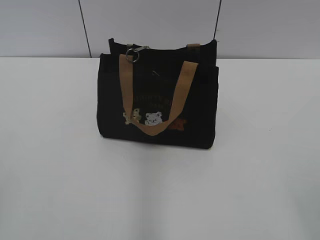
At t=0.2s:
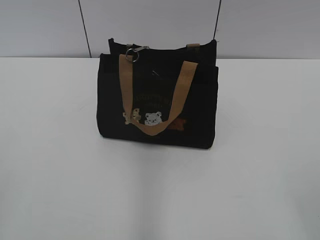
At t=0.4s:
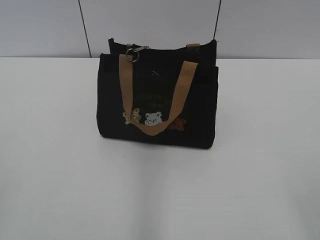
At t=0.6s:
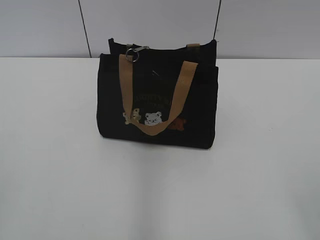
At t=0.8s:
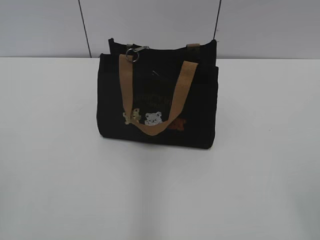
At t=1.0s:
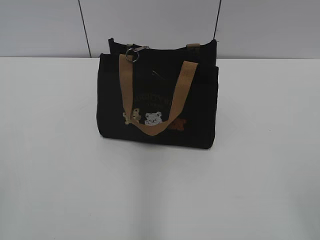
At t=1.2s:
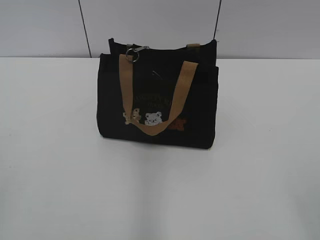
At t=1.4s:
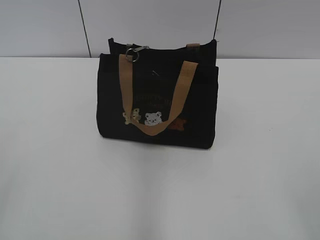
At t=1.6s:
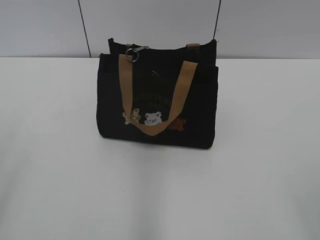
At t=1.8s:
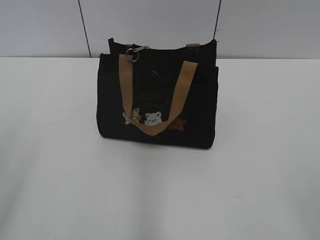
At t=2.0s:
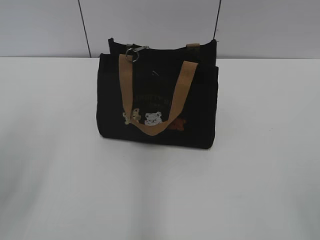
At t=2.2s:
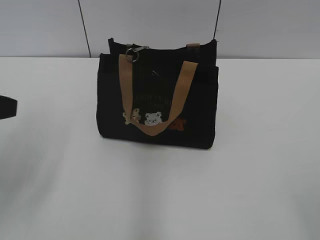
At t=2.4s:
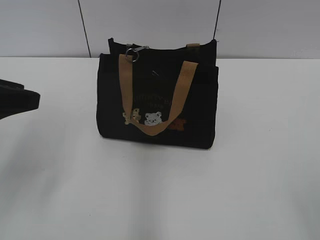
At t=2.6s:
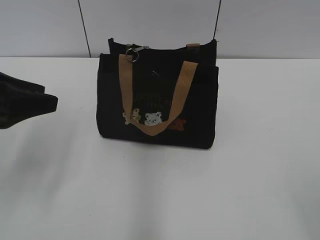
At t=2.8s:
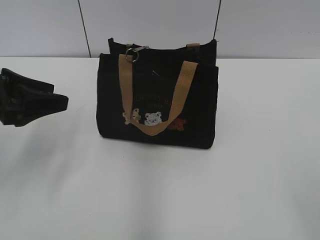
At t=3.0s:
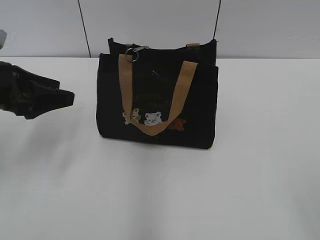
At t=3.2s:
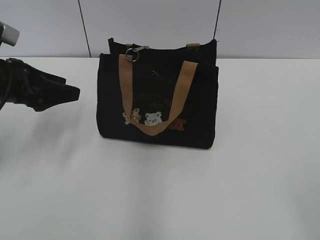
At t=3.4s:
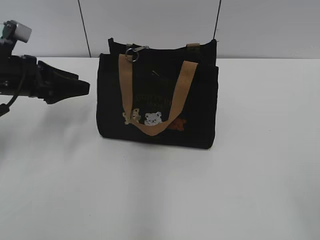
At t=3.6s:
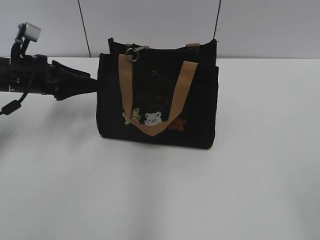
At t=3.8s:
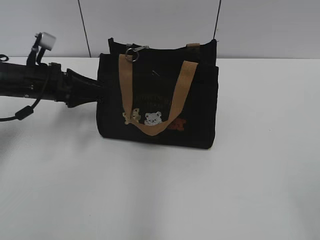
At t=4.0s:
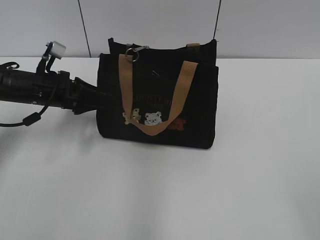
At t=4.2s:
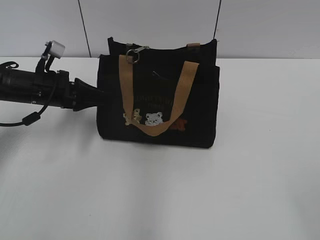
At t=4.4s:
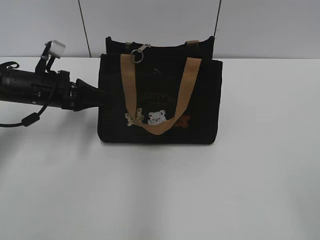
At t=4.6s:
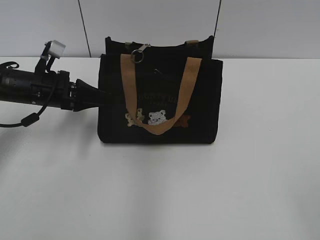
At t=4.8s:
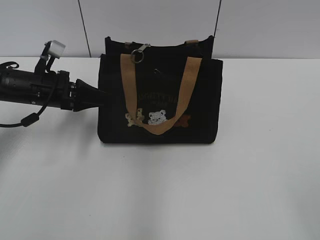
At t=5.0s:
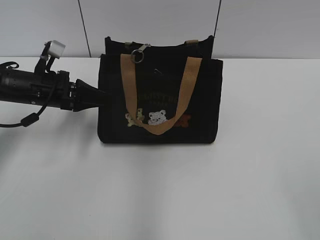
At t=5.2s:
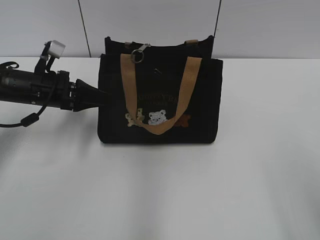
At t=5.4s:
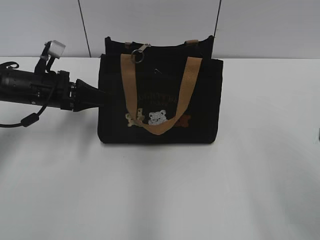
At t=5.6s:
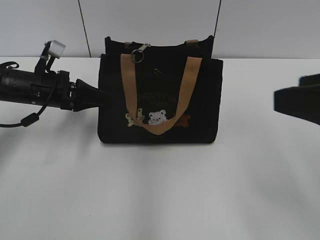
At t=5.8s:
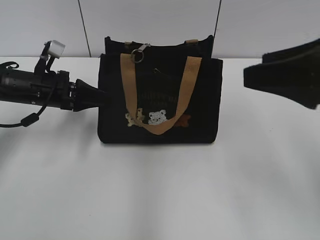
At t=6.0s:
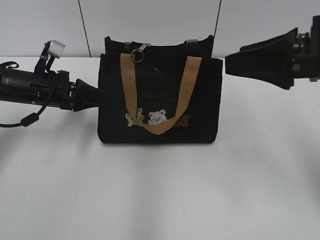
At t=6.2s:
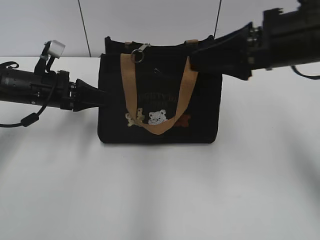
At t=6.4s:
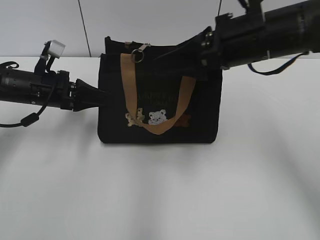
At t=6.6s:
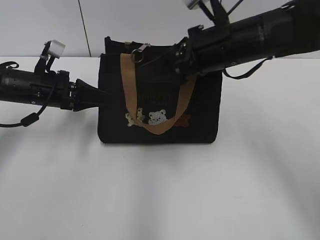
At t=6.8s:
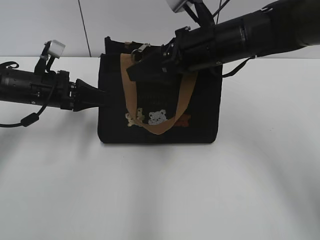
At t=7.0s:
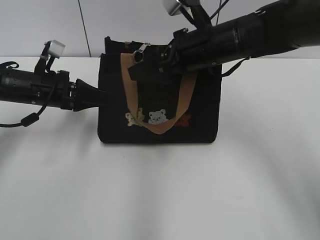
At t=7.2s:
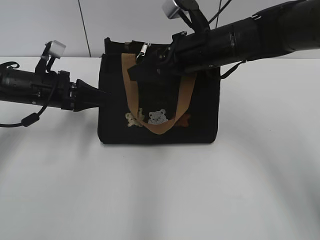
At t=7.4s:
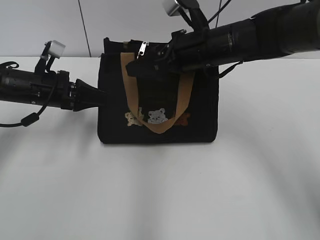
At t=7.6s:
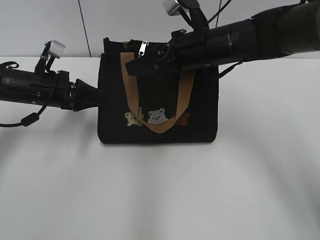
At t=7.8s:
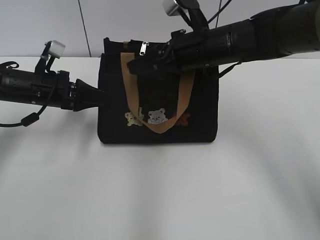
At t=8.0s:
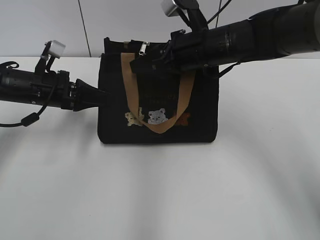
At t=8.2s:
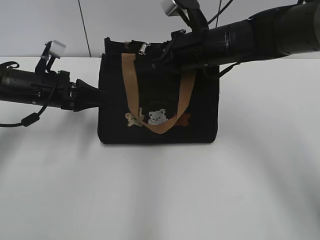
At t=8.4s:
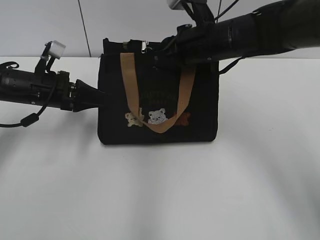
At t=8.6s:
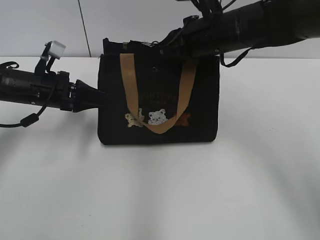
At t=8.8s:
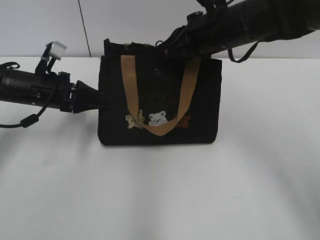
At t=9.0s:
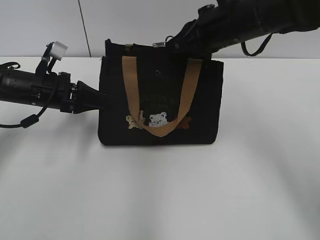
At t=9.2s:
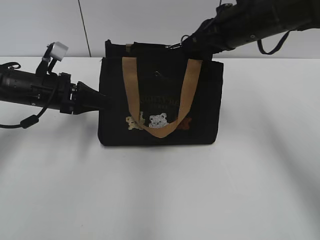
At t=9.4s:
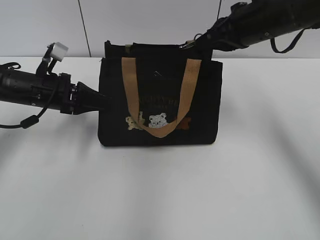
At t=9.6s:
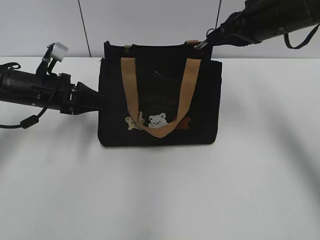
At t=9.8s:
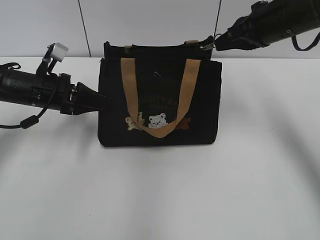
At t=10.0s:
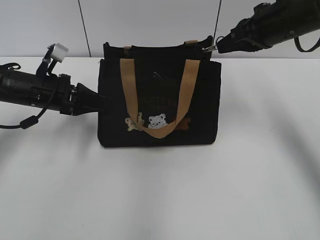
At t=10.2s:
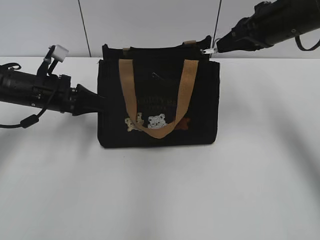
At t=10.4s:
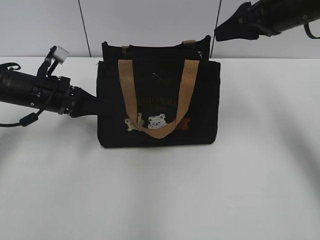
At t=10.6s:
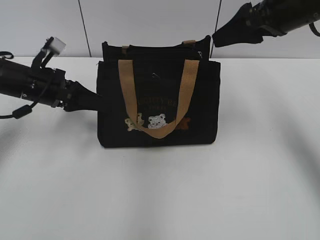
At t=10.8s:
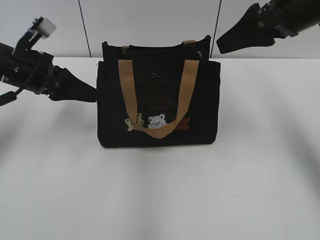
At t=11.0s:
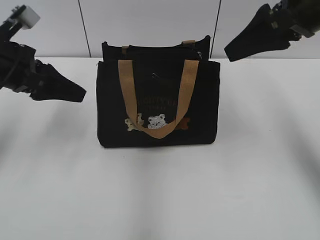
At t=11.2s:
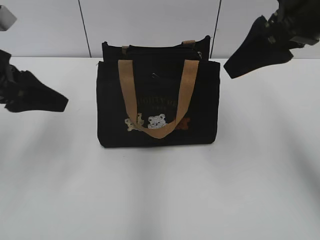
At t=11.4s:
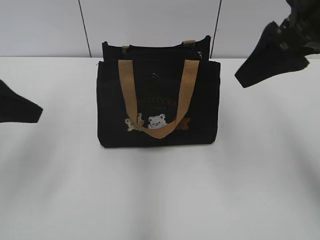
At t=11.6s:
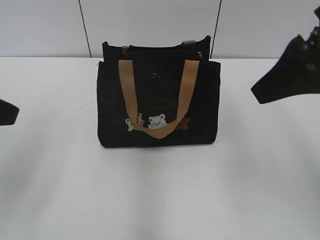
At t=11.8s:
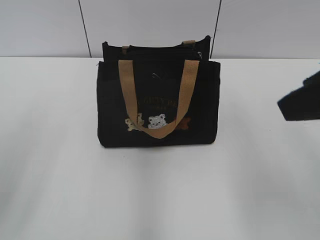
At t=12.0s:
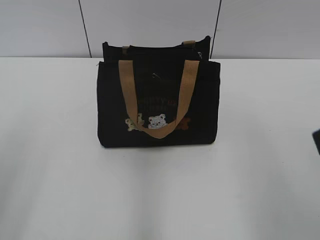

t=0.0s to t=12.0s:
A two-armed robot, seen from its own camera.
Step, t=0.0s to t=10.2s: Pull open the zipper with your right hand.
Step, t=10.4s to t=10.6s: Hold the bag with your left hand.
t=1.6s to t=3.0s: The left gripper shifts approximately 25 cm forward and downward.
t=3.0s to t=4.4s: The left gripper moves forward and downward, about 10 cm, and closes.
t=4.4s to t=6.0s: The right gripper moves forward, some 25 cm.
t=6.0s to t=7.6s: The right gripper travels forward, to the left and downward by roughly 20 cm.
t=7.6s to t=9.0s: The right gripper moves approximately 5 cm, and closes its fingers.
t=9.0s to t=10.4s: The right gripper shifts about 10 cm to the right, and opens up, while the left gripper opens its fingers.
t=10.4s to t=12.0s: The right gripper travels backward by roughly 25 cm. Meanwhile the left gripper travels backward and upward by approximately 30 cm.

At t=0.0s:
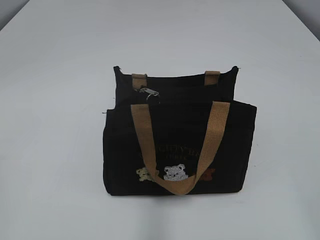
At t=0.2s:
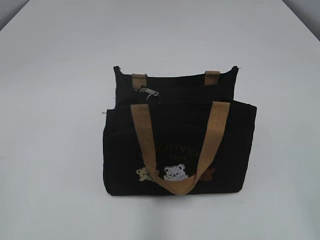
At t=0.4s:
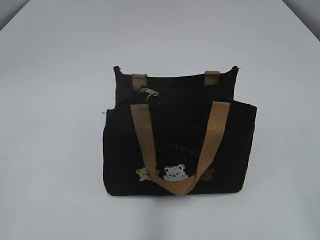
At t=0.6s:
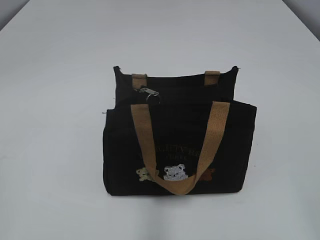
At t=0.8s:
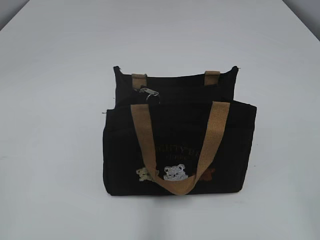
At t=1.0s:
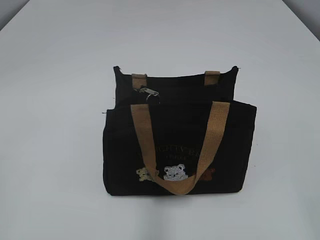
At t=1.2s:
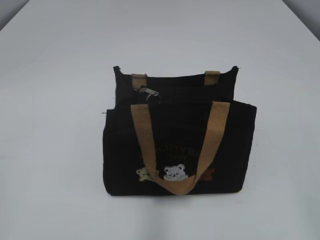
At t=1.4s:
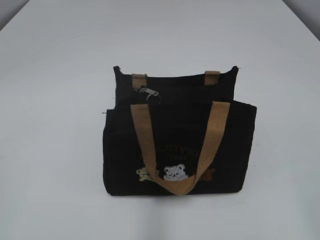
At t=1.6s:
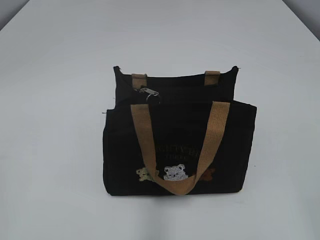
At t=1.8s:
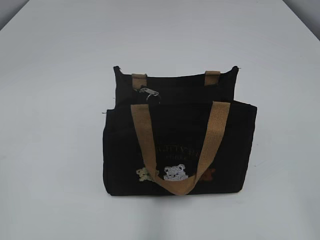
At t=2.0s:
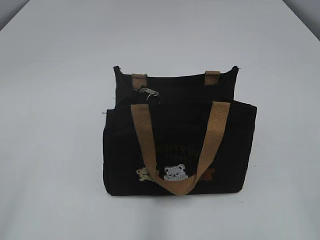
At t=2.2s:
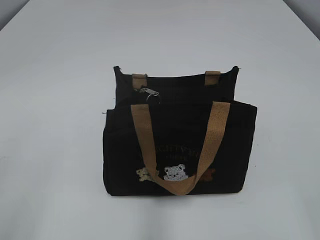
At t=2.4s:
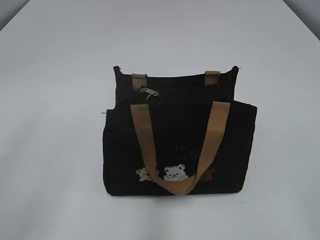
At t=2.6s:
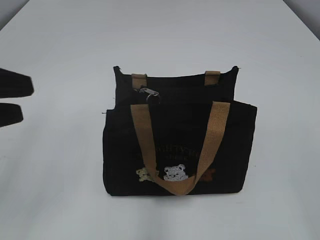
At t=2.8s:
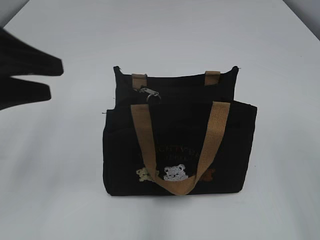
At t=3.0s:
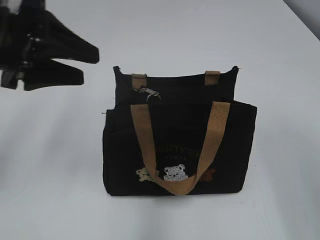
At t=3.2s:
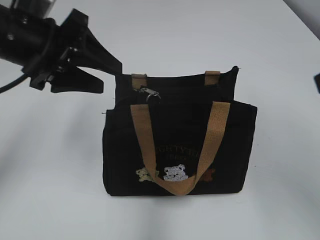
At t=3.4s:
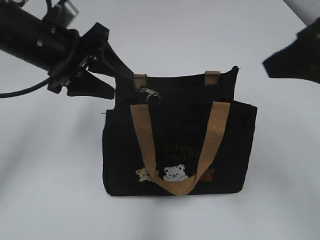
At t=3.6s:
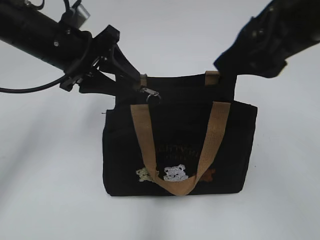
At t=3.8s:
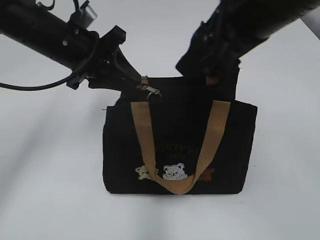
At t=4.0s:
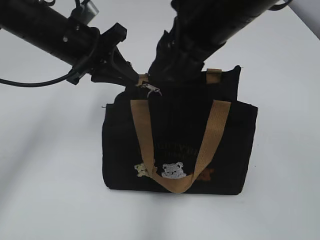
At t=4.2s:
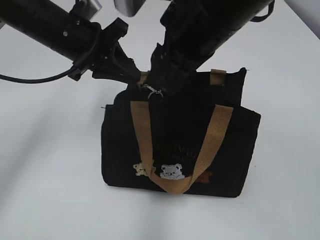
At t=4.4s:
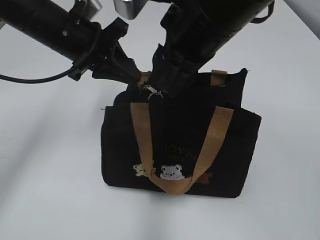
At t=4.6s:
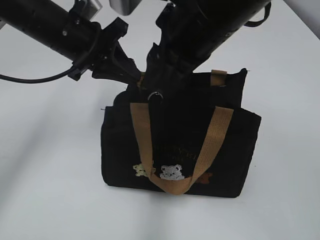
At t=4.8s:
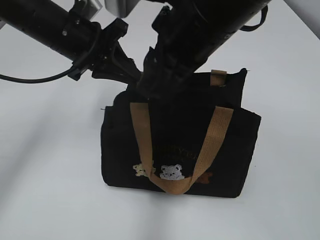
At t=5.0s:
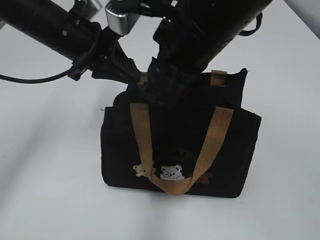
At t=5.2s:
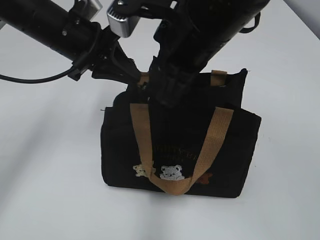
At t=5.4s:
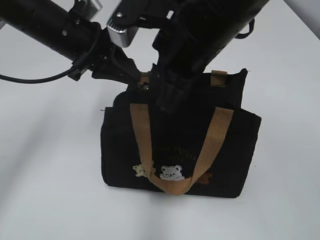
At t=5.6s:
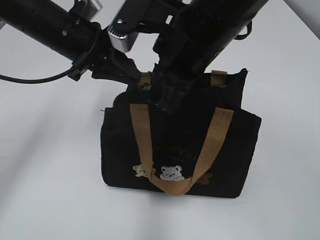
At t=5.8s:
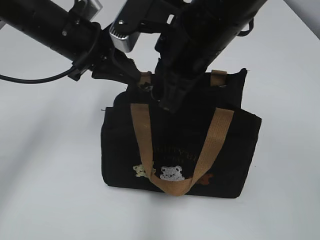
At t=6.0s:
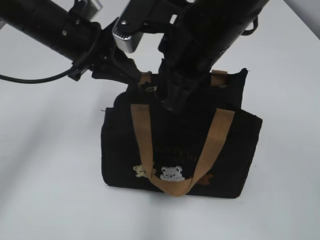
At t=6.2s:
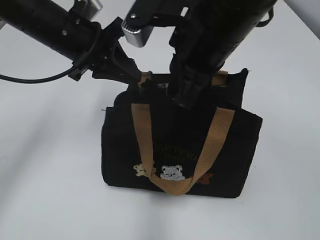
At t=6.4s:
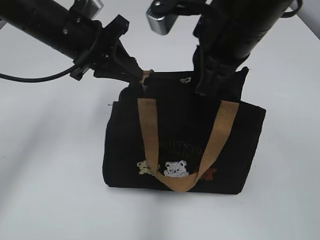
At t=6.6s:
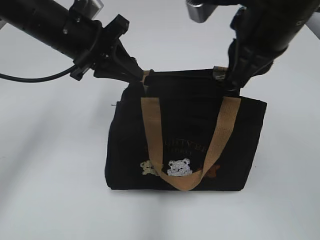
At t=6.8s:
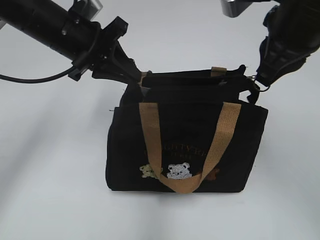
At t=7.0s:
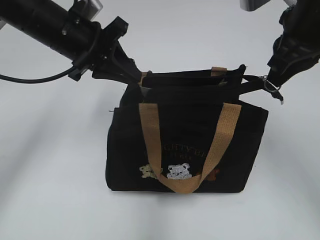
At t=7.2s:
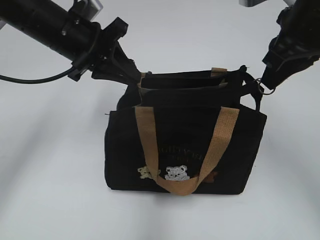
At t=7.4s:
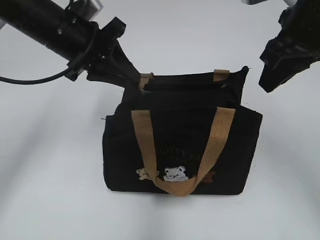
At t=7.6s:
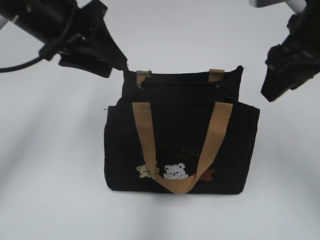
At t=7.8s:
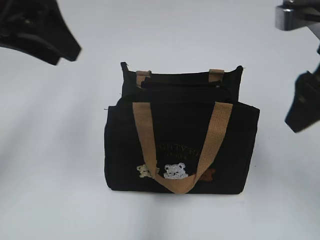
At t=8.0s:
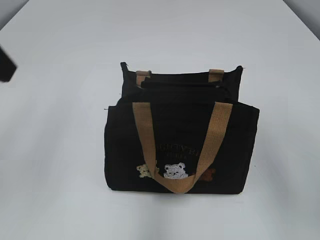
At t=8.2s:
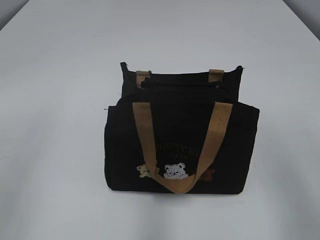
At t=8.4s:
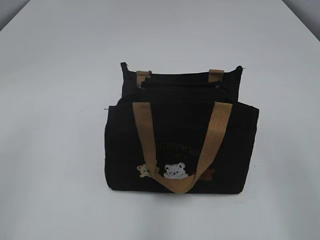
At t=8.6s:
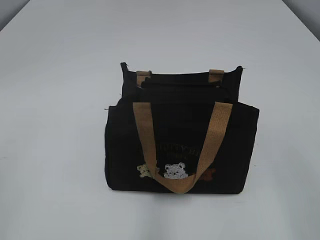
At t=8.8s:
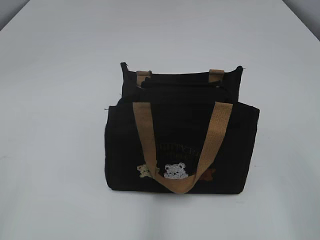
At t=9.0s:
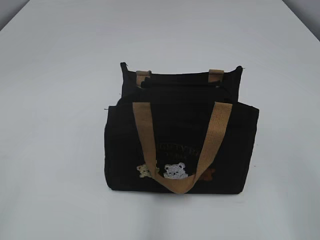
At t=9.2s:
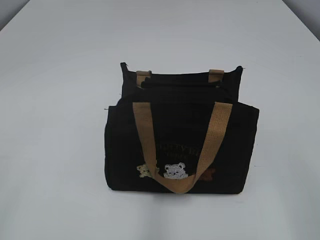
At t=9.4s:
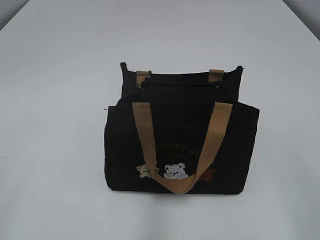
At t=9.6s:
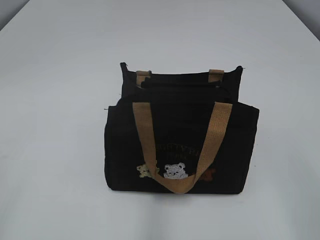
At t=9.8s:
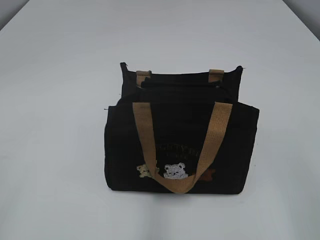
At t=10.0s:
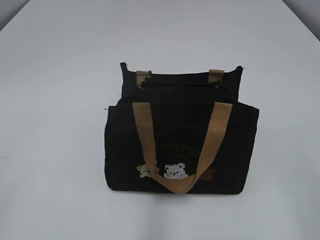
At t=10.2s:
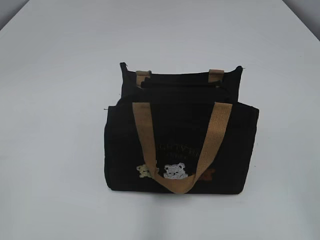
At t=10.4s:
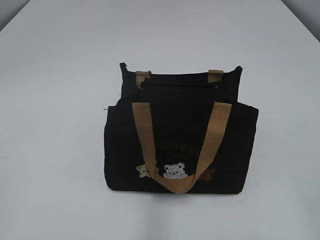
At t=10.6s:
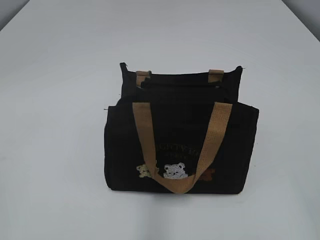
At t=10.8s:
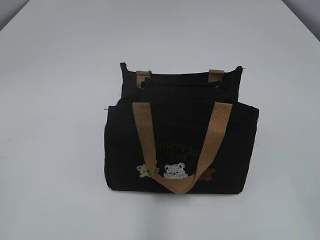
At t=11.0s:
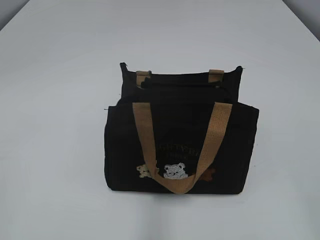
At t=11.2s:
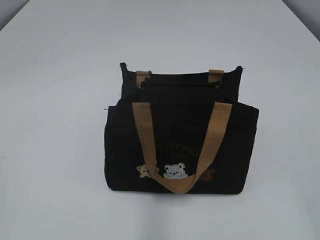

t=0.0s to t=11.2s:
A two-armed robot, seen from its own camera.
Step, t=0.0s to t=7.2s: Pull open the zipper with your right hand.
Step, t=7.4s to t=7.6s: Hold the bag with your left hand.
t=1.6s to t=3.2s: The right gripper goes some 20 cm forward and upward. Meanwhile the left gripper heads forward and to the right, covering roughly 30 cm, and opens its fingers.
t=3.2s to t=4.8s: The left gripper heads forward, covering about 5 cm, and closes. Meanwhile the right gripper shifts roughly 20 cm to the left and forward, and closes its fingers.
t=4.8s to t=6.4s: The right gripper closes.
t=6.4s to t=8.0s: The left gripper goes roughly 20 cm backward, upward and to the left, and opens its fingers. Meanwhile the right gripper goes approximately 15 cm to the right and backward, and opens its fingers.
t=8.0s to t=9.6s: The right gripper is displaced backward by approximately 15 cm. Meanwhile the left gripper travels backward and to the left by about 25 cm.
